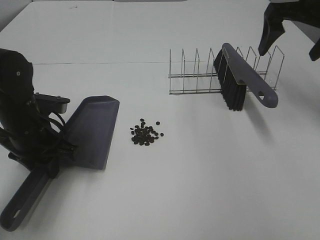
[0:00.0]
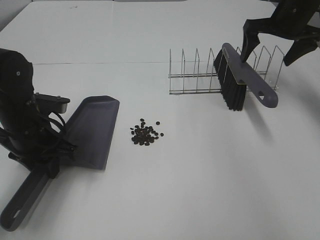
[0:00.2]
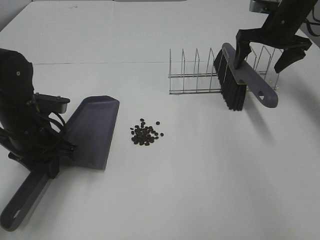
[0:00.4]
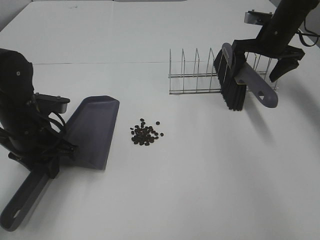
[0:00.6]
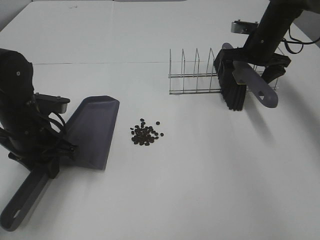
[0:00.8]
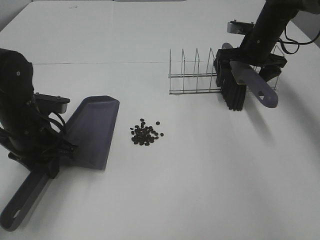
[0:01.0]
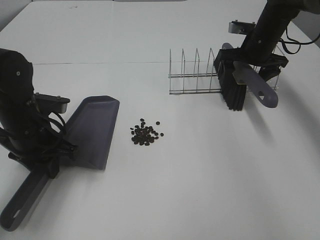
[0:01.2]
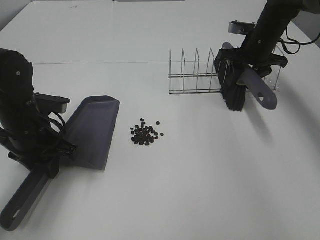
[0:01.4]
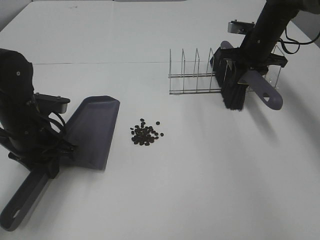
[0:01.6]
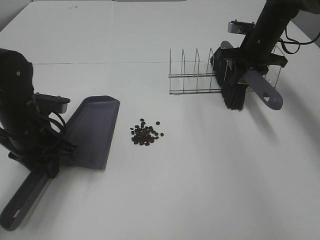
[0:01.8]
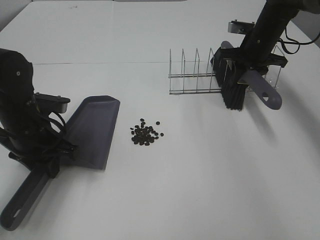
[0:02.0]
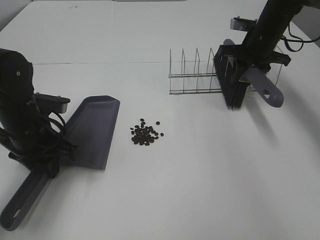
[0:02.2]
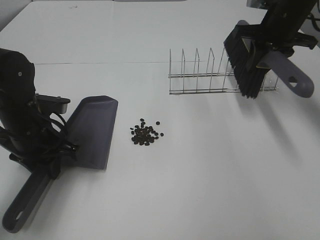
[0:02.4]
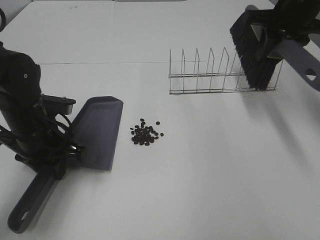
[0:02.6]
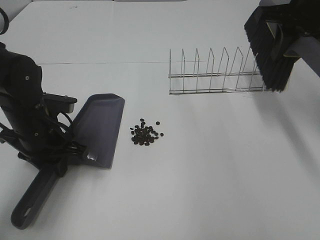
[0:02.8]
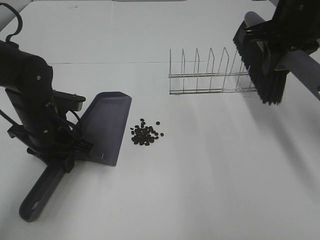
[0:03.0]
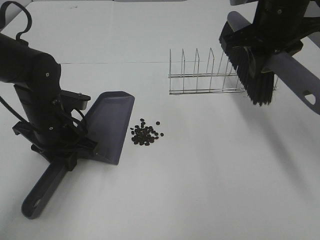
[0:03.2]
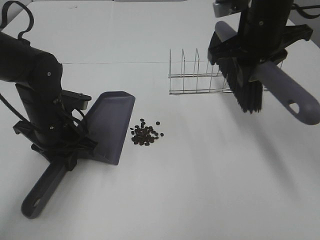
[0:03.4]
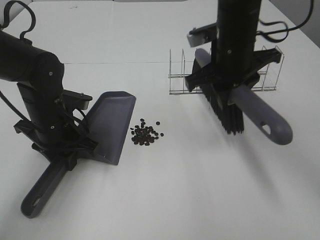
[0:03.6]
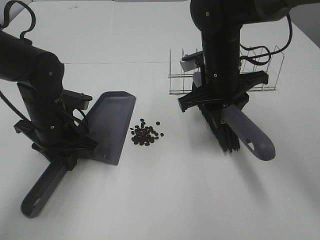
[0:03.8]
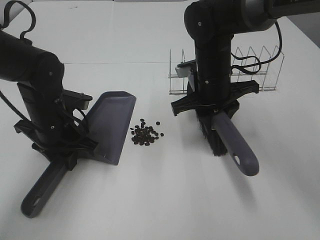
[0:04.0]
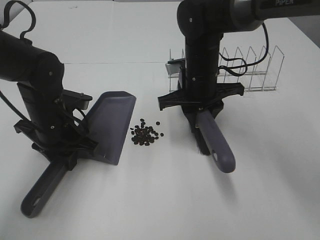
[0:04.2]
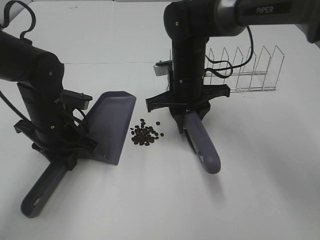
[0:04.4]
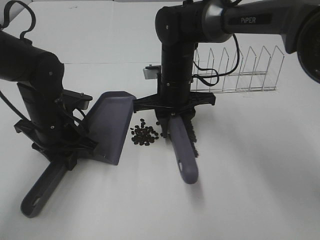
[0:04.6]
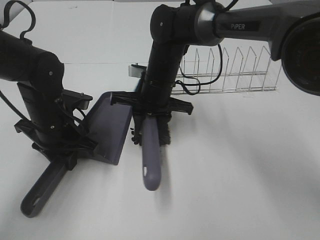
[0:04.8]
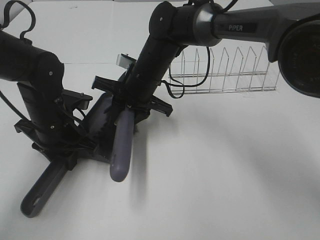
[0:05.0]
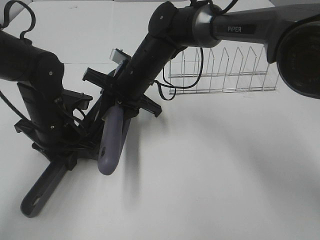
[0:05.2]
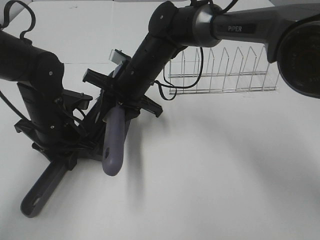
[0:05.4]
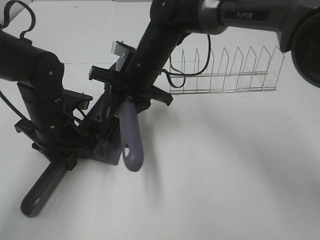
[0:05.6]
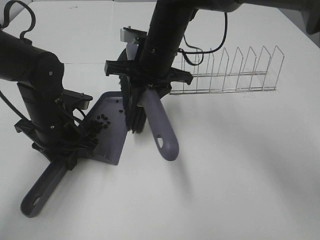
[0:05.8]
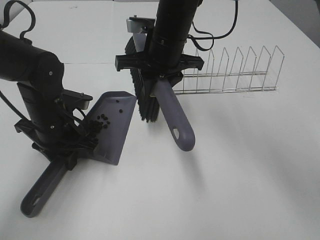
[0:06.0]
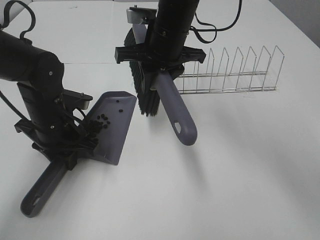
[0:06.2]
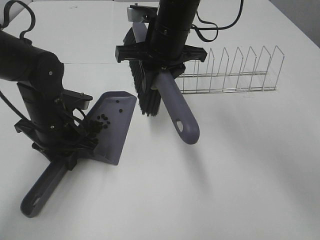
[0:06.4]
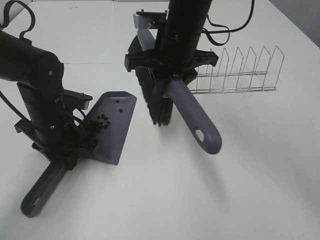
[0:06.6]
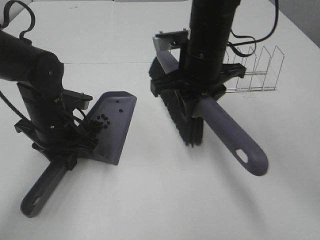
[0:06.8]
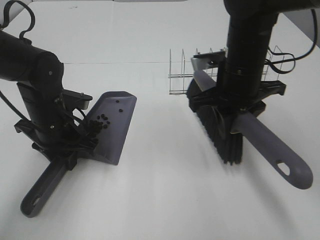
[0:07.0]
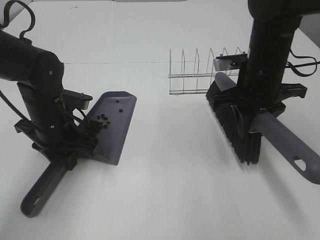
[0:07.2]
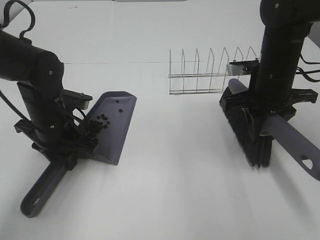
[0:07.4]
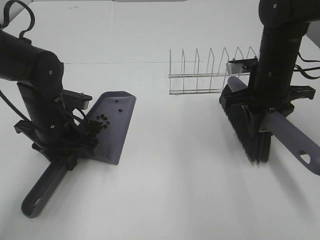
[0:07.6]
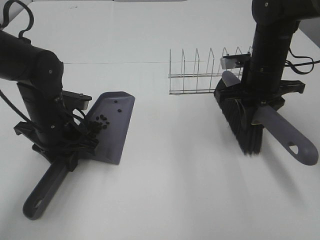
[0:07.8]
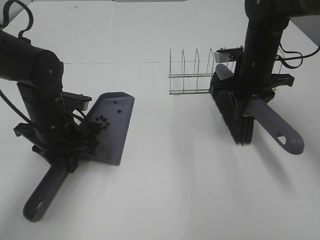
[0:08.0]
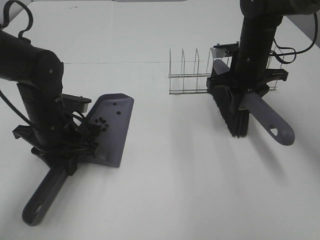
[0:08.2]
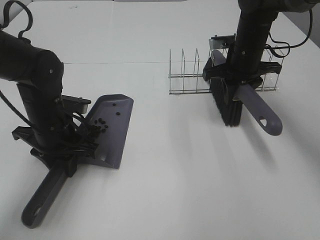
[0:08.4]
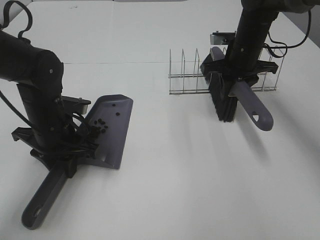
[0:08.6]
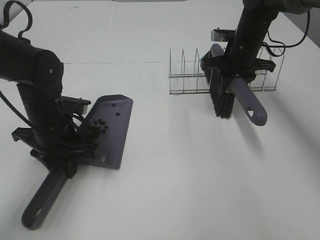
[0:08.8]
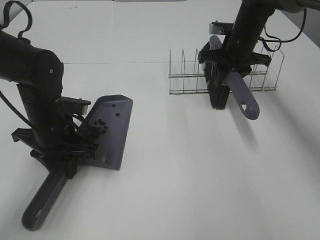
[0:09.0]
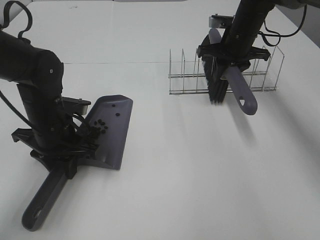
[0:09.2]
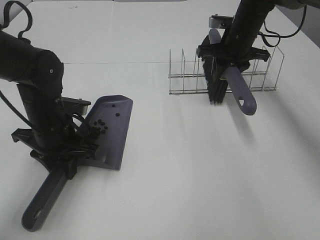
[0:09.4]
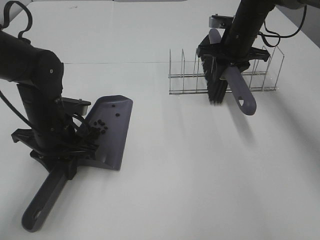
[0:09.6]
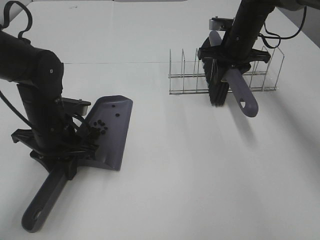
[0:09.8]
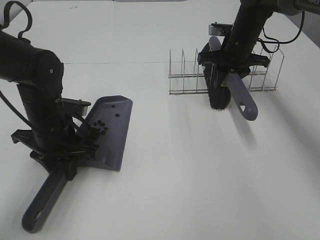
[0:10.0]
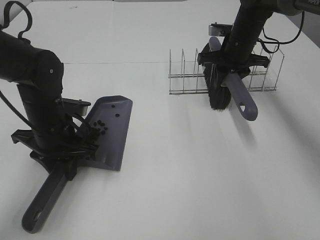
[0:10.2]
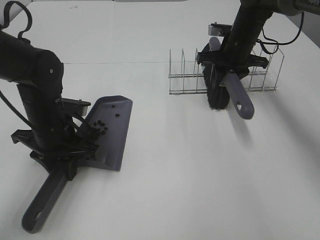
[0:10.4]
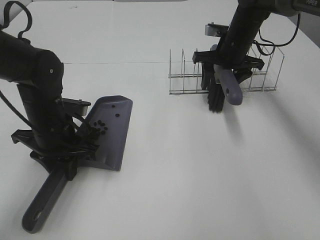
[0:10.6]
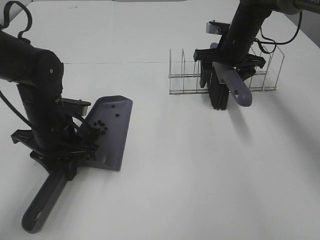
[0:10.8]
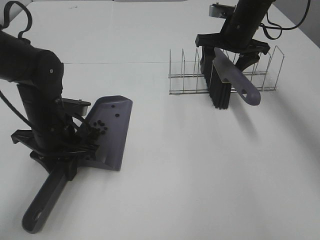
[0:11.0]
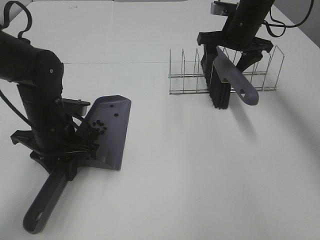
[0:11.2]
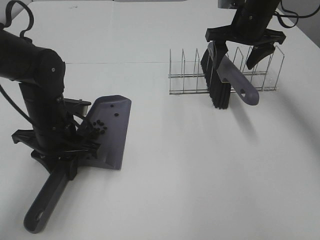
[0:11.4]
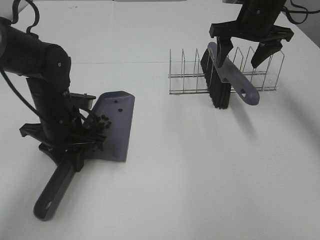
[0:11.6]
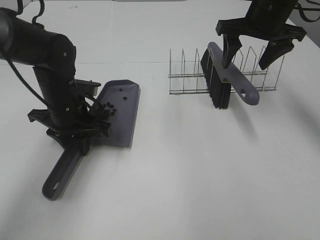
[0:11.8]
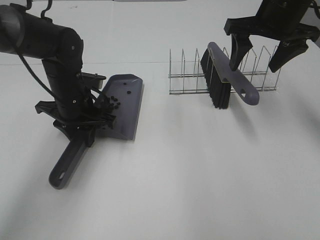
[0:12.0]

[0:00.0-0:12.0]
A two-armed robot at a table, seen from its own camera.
Task of the whole recording: Sweep Coffee Bean.
Step, 0.0 to 1.4 s: Right hand:grab the broom.
Step, 1.6 to 5.4 s: Right hand:sweep the coffee beans into the dustpan.
Step, 5.6 to 11.2 s: Right hand:place the broom on the rack.
0.0 to 1.6 s: The right gripper shifts some 15 cm downward and forward, and closes its fingers.
1.6 to 3.0 s: The right gripper moves backward and upward, roughly 20 cm.
3.0 to 4.4 s: The right gripper shifts roughly 20 cm to the left and downward.
4.4 to 6.0 s: The right gripper goes approximately 10 cm upward.
6.0 to 7.6 s: The right gripper heads to the right, covering about 20 cm.
7.6 to 9.0 s: The right gripper shifts about 15 cm forward.
9.0 to 10.4 s: The two grippers keep their place.
10.4 to 12.0 s: The right gripper goes some 15 cm upward and backward, and opens up, while the left gripper travels forward by approximately 5 cm.

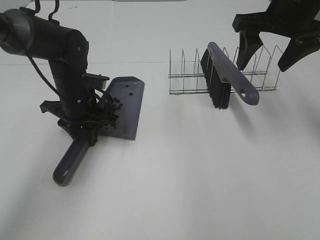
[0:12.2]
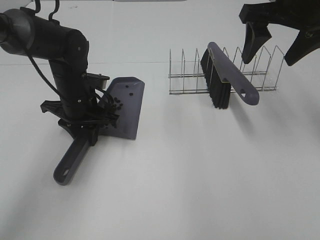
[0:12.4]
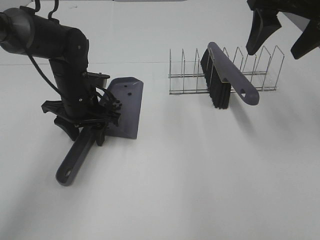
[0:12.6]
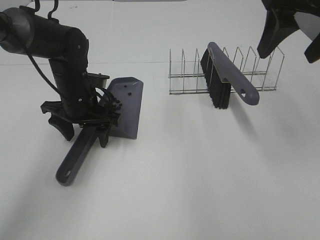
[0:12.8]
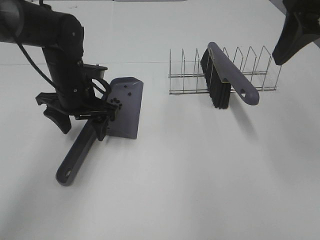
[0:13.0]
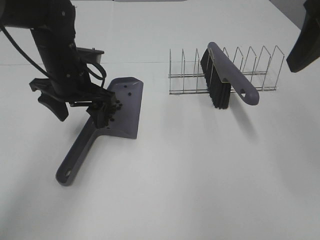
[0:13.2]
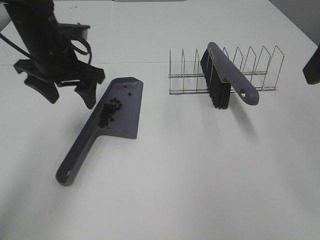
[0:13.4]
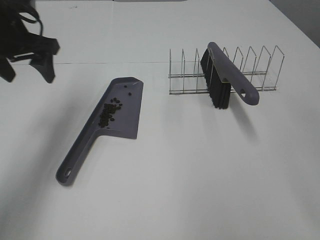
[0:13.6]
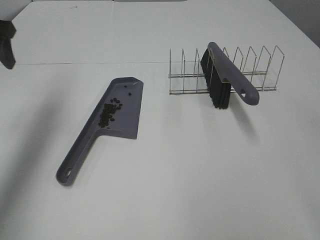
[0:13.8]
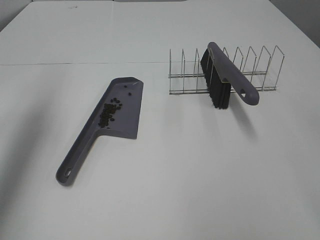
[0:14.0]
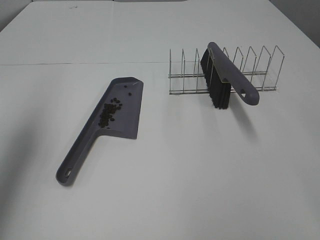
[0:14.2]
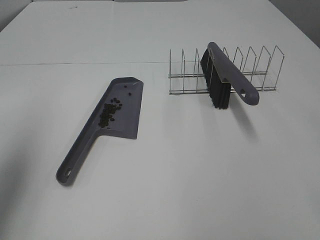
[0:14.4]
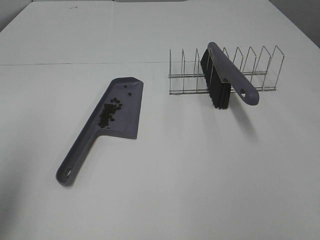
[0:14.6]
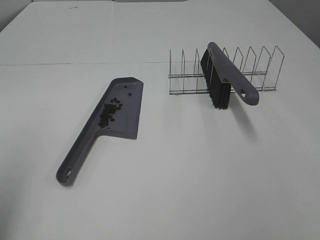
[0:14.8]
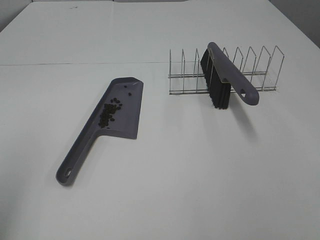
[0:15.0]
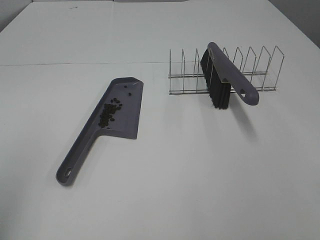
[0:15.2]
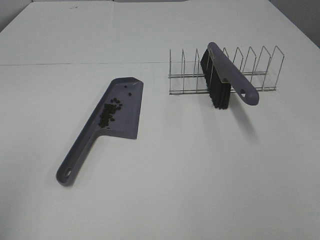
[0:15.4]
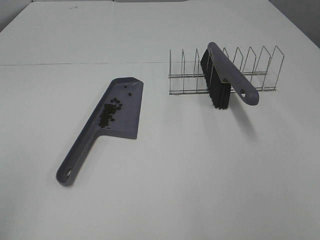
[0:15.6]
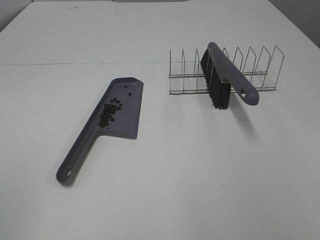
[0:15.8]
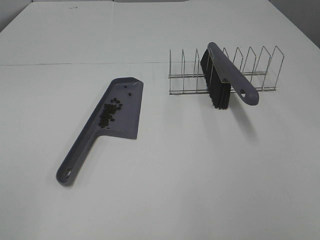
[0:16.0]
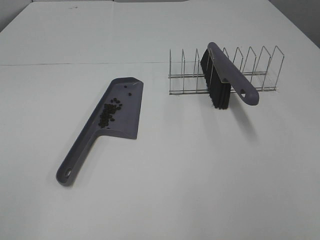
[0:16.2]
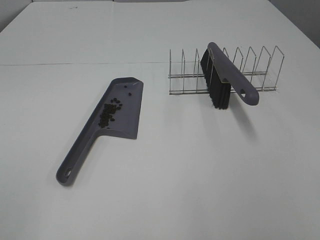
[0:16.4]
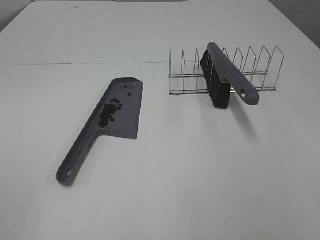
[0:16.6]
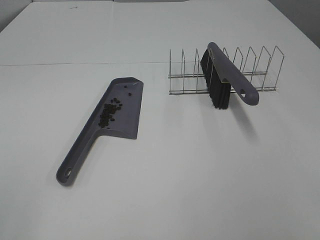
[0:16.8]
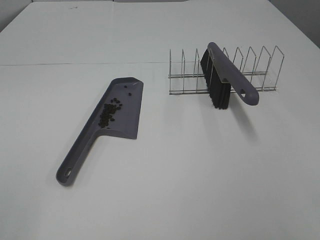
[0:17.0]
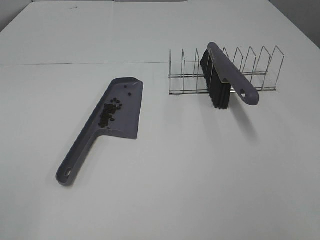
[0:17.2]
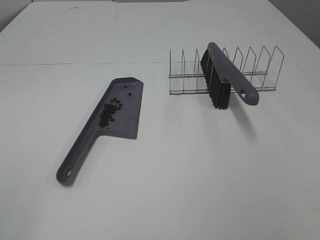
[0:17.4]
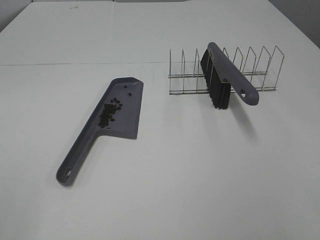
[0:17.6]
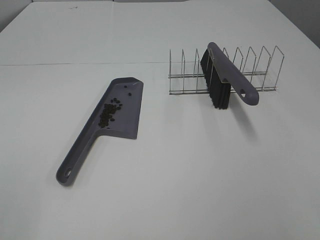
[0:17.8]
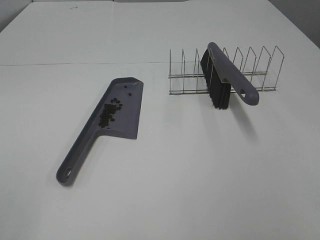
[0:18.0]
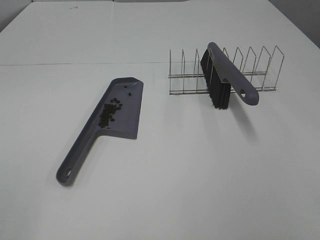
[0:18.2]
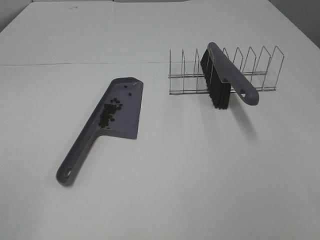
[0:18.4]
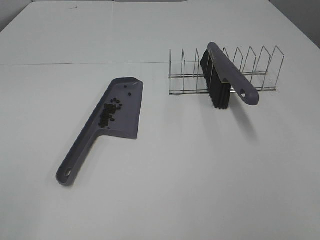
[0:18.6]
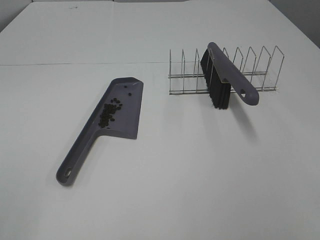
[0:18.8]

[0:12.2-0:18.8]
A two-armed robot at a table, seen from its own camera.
Task of the whole recording: Sweep Coffee Bean.
12.2 to 13.8 s: The left gripper heads upward and to the left, covering about 25 cm, and opens. Meanwhile the right gripper is displaced backward by about 25 cm.
13.8 to 15.4 s: The left gripper moves backward, some 30 cm.

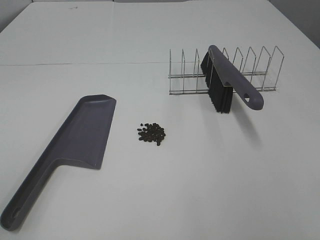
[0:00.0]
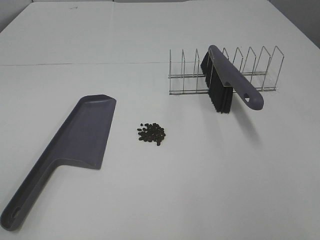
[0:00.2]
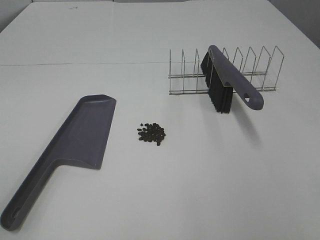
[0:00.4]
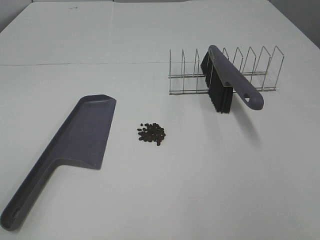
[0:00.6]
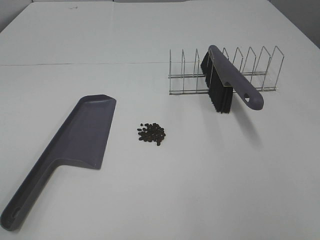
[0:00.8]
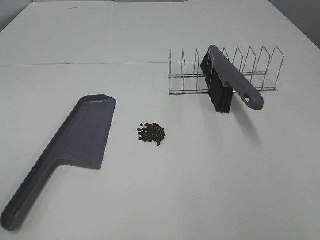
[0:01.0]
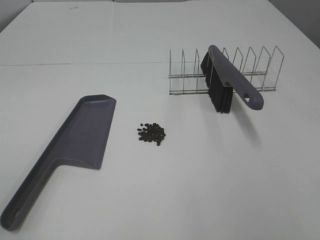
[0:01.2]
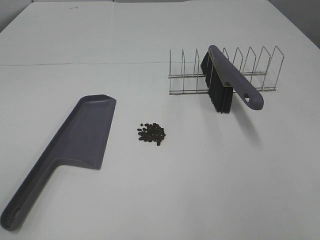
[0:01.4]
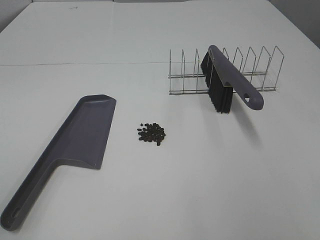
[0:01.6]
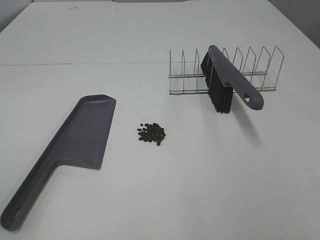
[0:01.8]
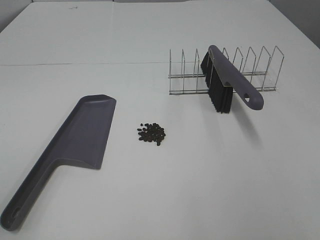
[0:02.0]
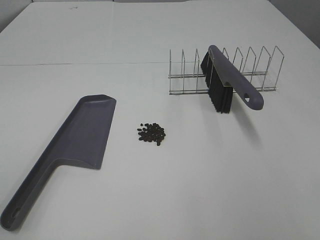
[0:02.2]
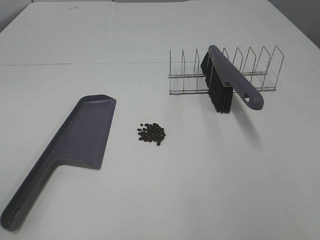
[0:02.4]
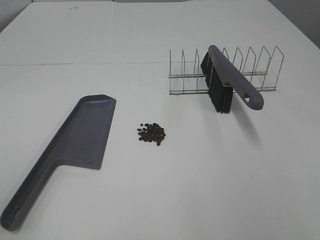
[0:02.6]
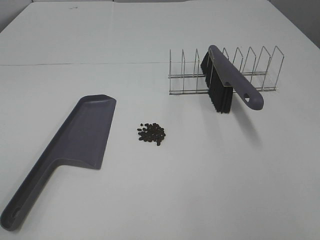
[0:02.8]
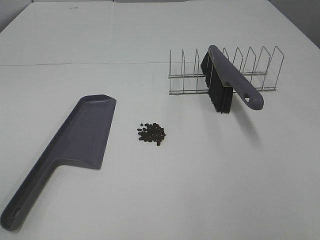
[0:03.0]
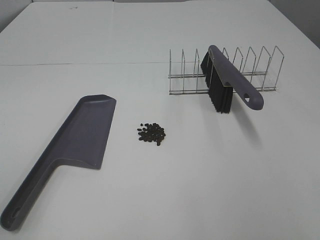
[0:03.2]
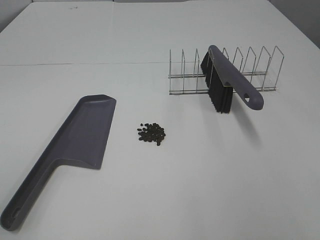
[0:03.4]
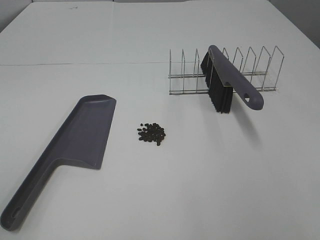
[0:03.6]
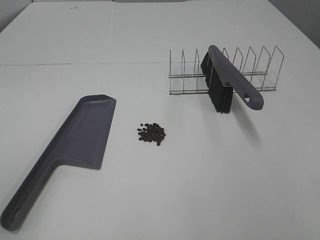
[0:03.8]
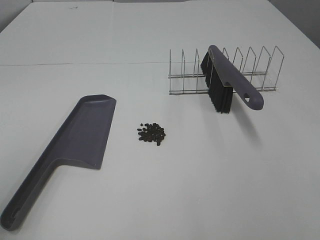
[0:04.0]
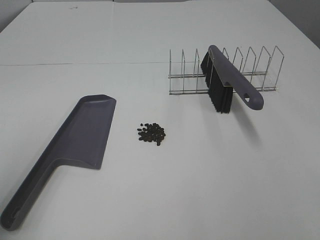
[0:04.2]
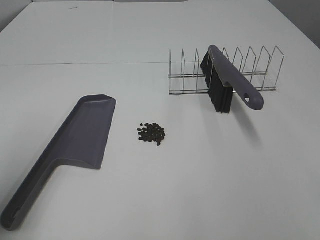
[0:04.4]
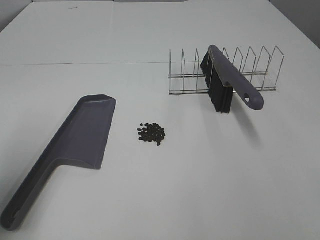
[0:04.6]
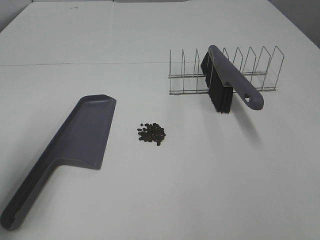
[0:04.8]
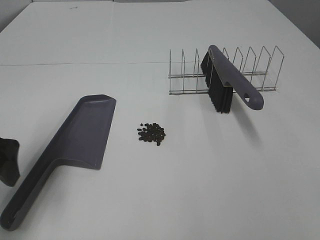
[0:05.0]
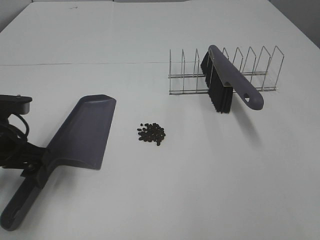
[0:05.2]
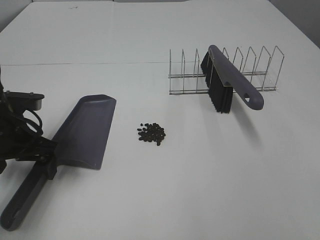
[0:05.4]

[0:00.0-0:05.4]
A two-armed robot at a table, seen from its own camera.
Task of the whole recording: Sweep Coffee Bean.
0.0 to 2.8 s: The two grippers keep their place.
4.0 to 5.4 s: The left gripper travels forward and downward by roughly 30 cm.
